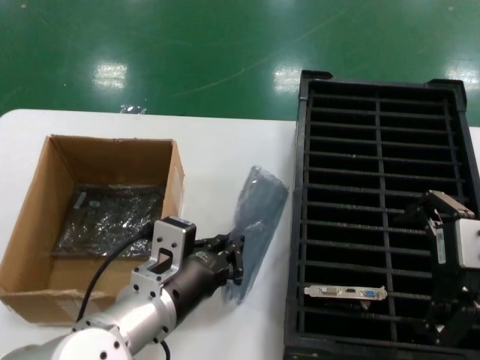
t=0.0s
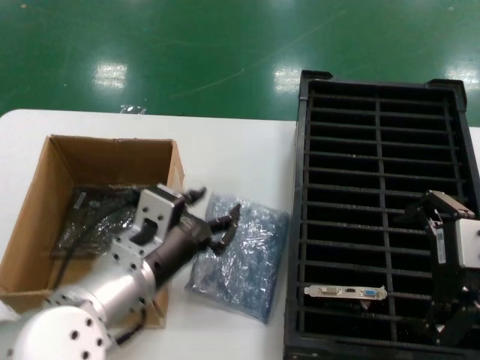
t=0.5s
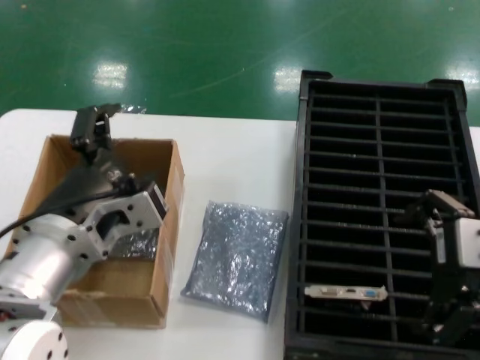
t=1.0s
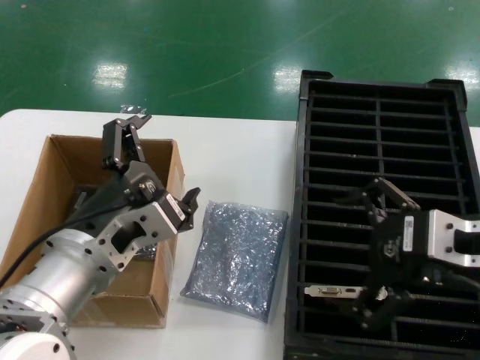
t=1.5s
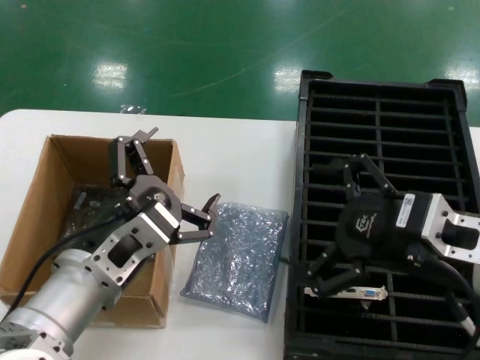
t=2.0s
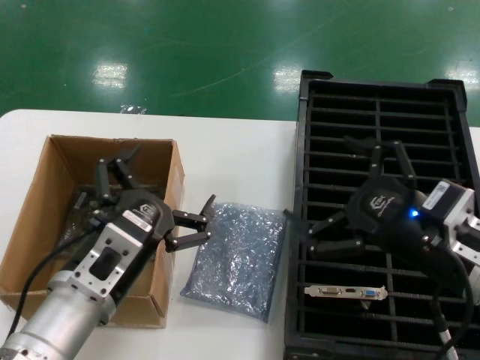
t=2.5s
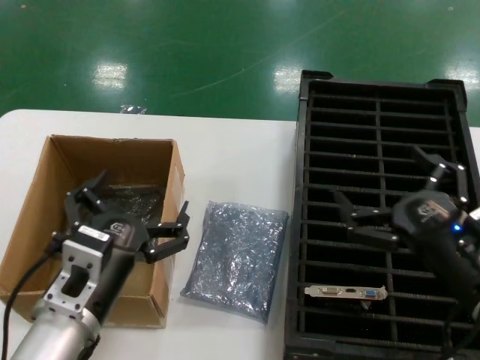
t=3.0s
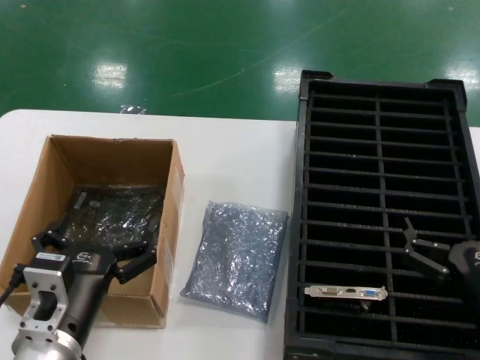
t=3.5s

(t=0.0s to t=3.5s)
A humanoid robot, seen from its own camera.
Task of the whole recording: take out graphics card from box remove packaging put into black container.
t=0.0s - t=2.0s: The right hand heads downward, covering some 5 cm.
t=2.0s - t=3.5s: The right hand goes roughly 15 cm downward, while the left hand moves downward, approximately 10 cm.
